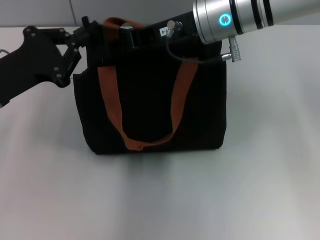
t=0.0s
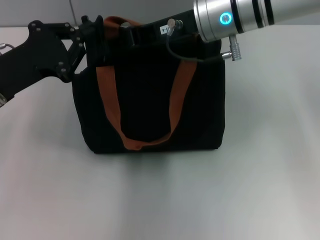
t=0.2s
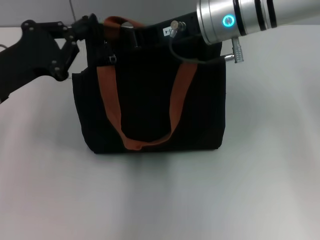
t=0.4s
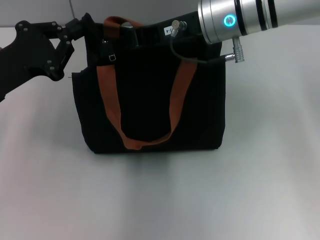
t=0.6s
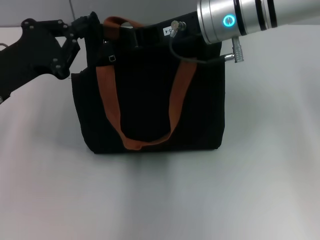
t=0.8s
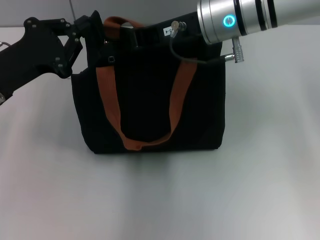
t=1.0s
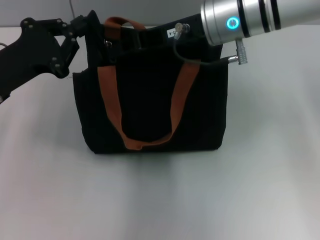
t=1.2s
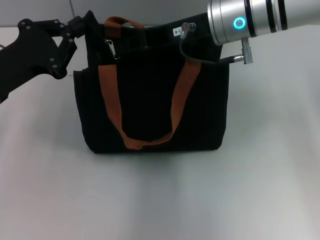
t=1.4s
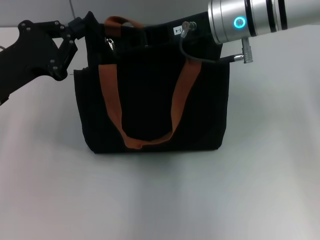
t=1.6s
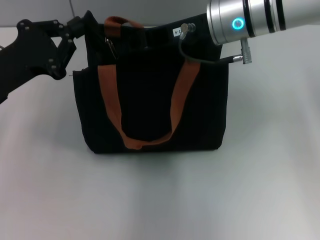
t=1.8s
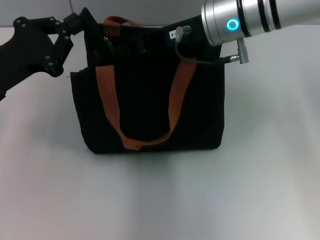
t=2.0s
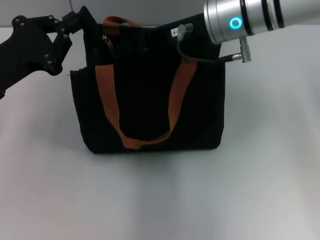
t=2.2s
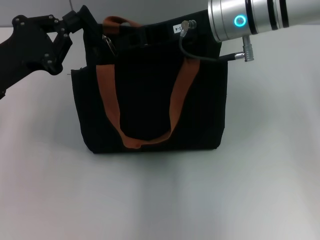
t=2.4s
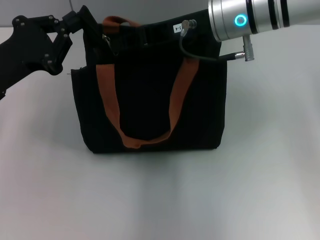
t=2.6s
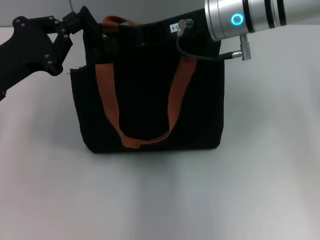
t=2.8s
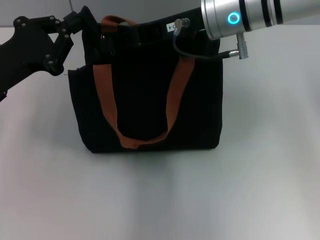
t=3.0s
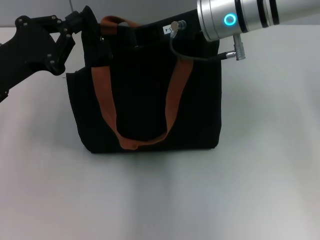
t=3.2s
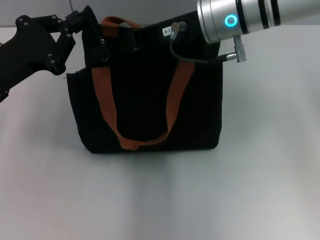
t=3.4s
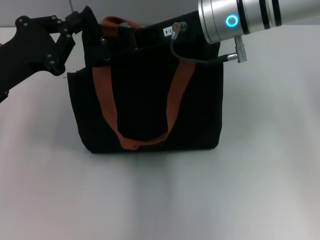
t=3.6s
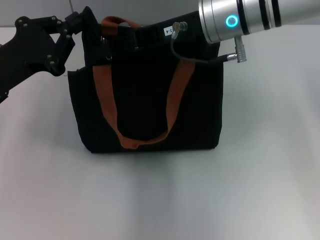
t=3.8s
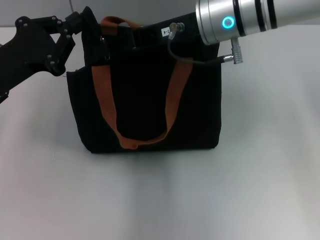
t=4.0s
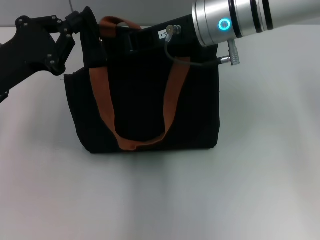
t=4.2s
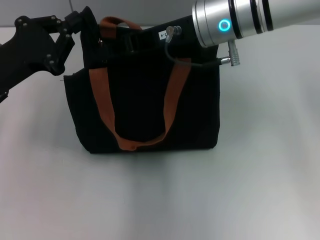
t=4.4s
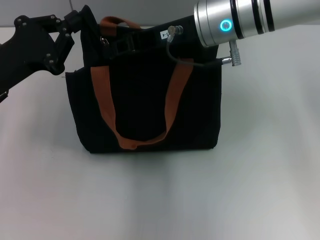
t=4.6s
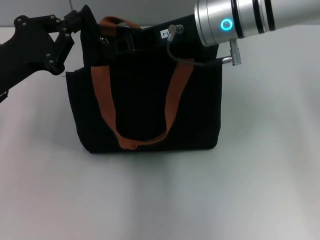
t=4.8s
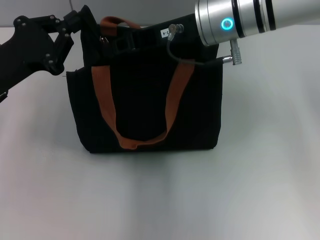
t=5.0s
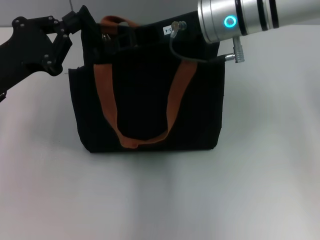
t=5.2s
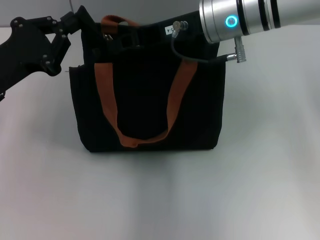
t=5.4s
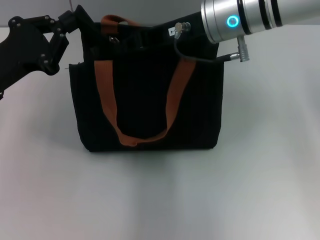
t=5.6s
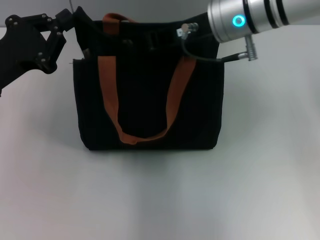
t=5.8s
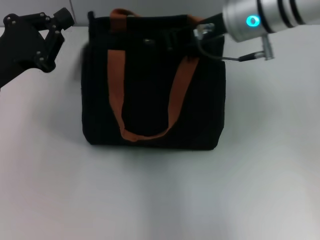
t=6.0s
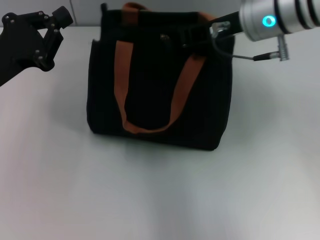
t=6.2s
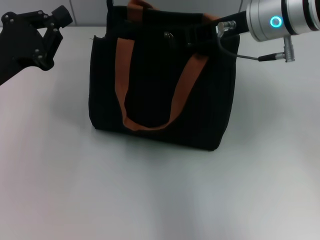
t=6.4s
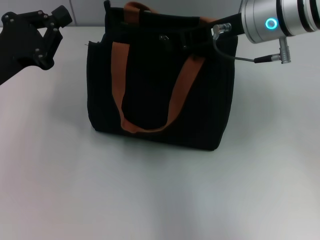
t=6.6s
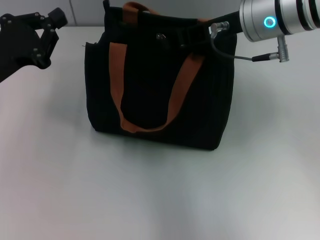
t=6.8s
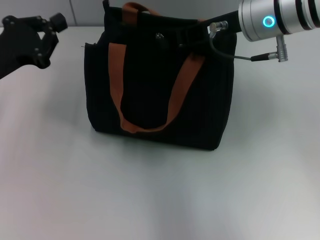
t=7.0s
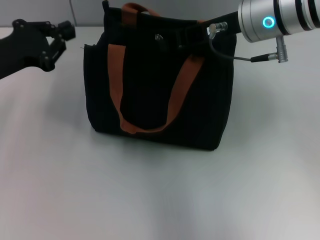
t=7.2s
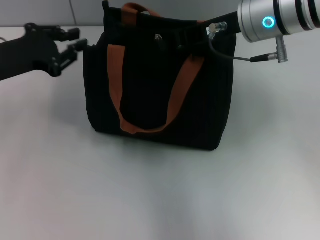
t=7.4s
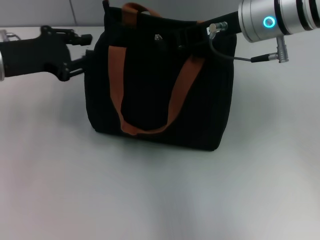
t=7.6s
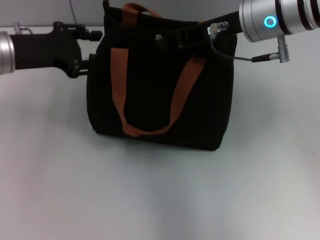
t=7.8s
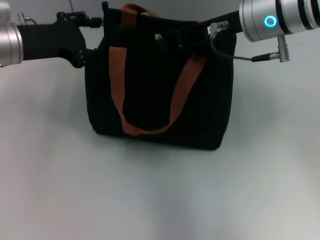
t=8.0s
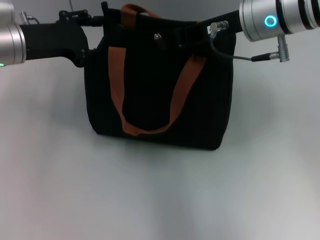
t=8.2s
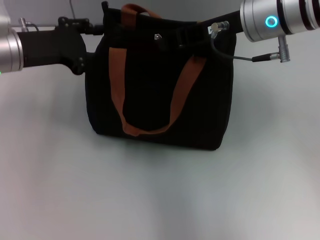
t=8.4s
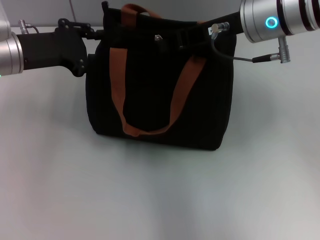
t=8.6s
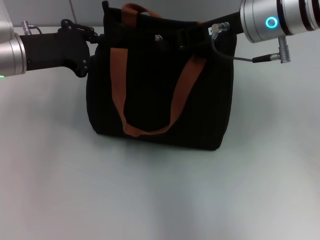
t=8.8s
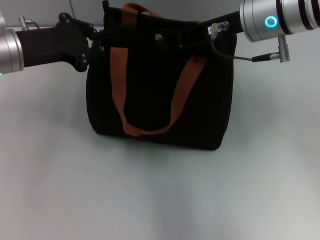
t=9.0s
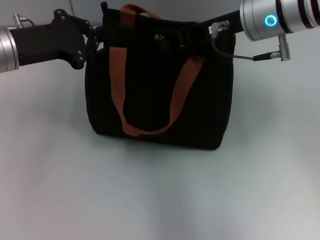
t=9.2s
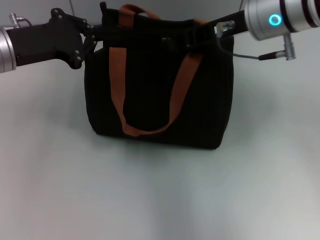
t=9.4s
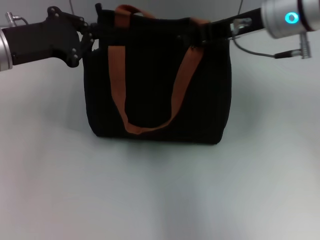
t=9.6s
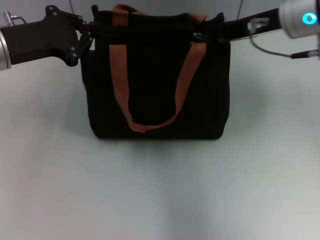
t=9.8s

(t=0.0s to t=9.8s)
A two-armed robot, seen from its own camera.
t=0.0s - t=1.4s: There are only small adjustments of the grippers.
t=1.4s - t=2.8s: The two grippers keep their place.
t=2.8s - t=4.2s: Both grippers stay about where they are.
t=4.2s - t=5.6s: The right gripper closes its fingers.
t=7.0s - t=8.4s: The left gripper shifts roughly 5 cm forward, and opens.
t=8.4s - t=9.8s: The left gripper closes its fingers. Meanwhile the right gripper moves approximately 5 cm.

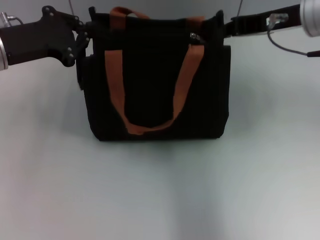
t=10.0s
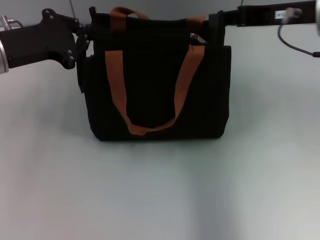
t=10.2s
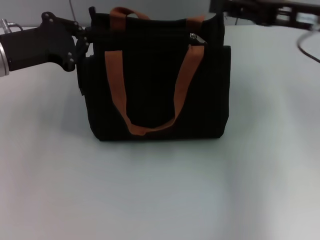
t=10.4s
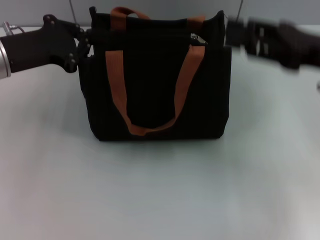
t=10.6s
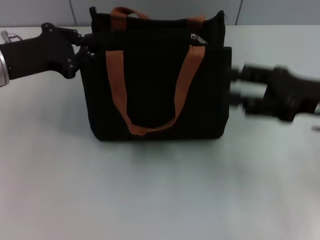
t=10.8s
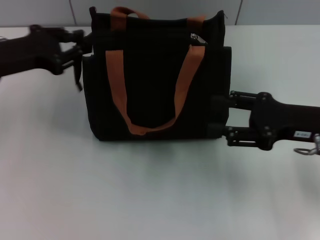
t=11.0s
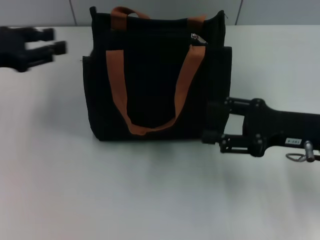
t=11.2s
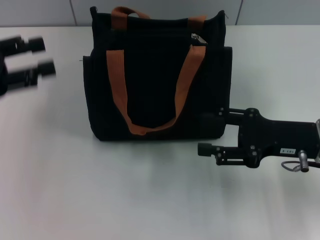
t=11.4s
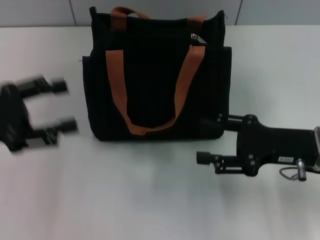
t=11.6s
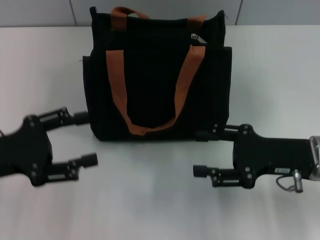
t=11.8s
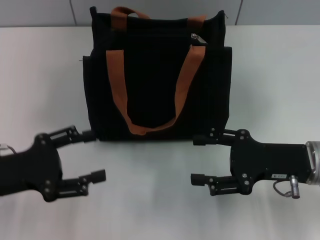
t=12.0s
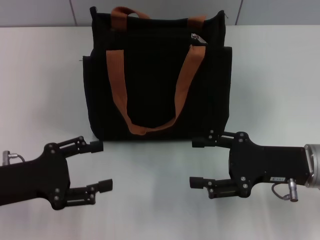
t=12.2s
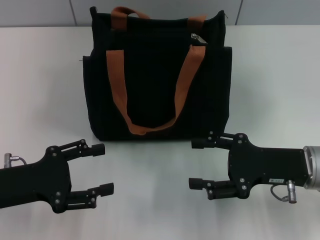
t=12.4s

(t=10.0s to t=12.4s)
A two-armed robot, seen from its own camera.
Step, t=10.6s - t=11.0s: Grab the zipper with your left hand.
t=10.0s - t=11.2s: The left gripper shifts some 5 cm to the left, and opens, while the right gripper heads downward and backward, covering about 15 cm, and opens.
t=11.2s - t=12.4s: The left gripper shifts approximately 15 cm backward and downward, and opens its fingers.

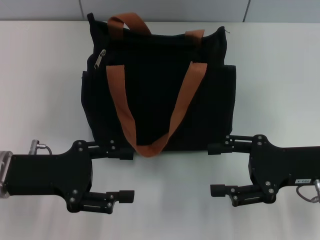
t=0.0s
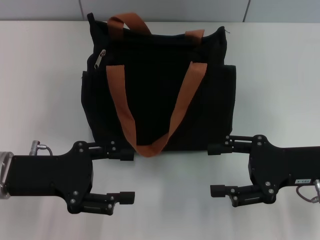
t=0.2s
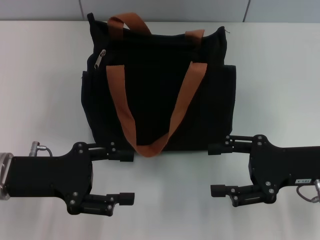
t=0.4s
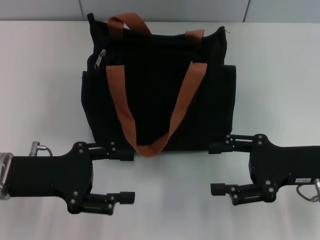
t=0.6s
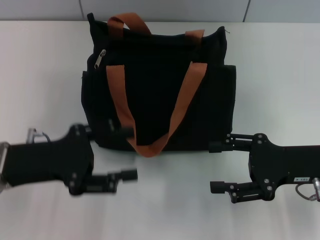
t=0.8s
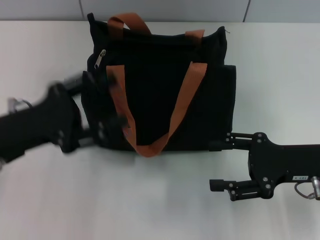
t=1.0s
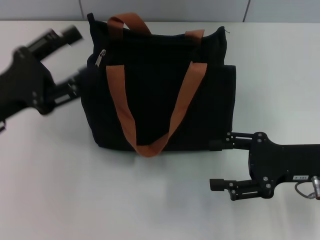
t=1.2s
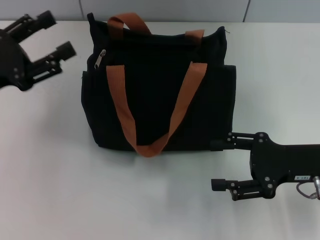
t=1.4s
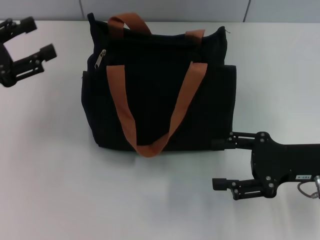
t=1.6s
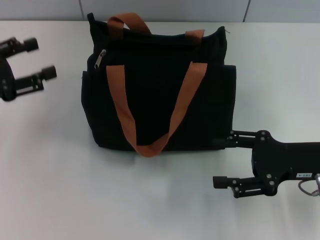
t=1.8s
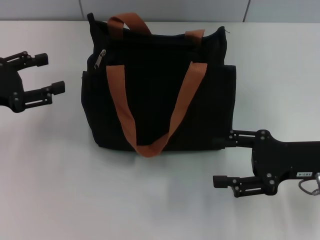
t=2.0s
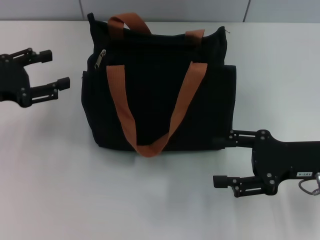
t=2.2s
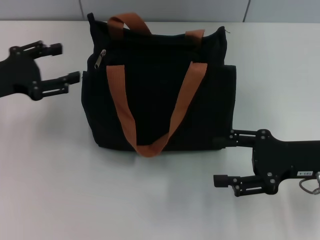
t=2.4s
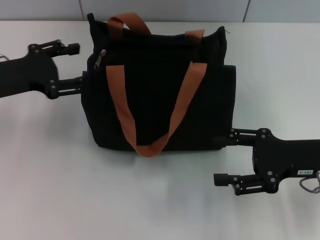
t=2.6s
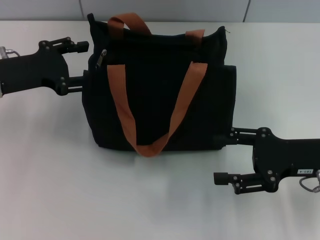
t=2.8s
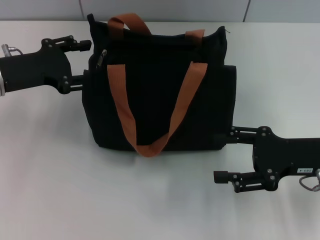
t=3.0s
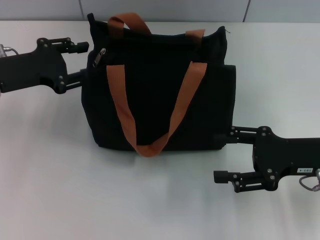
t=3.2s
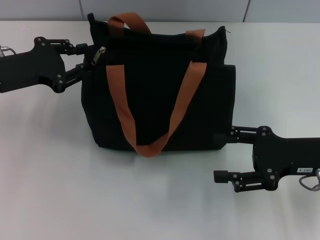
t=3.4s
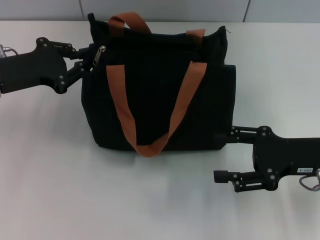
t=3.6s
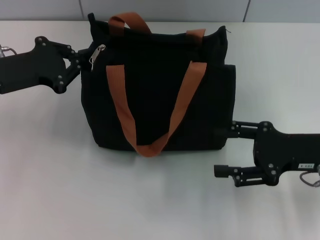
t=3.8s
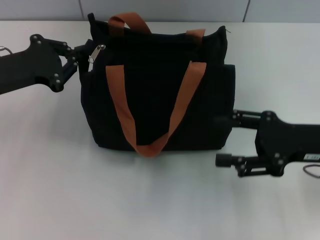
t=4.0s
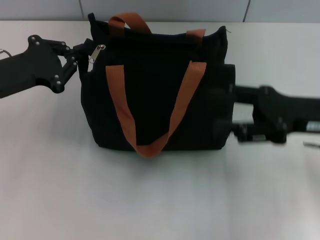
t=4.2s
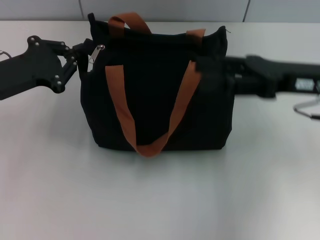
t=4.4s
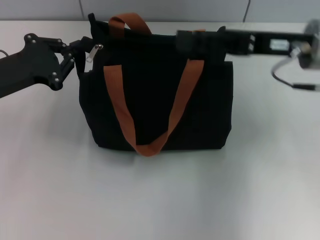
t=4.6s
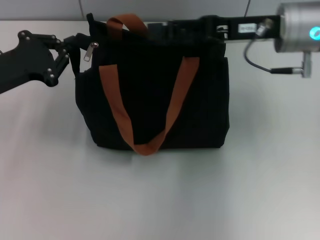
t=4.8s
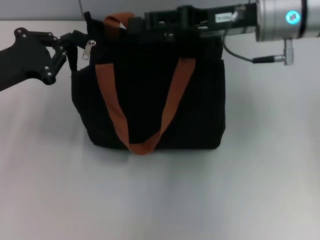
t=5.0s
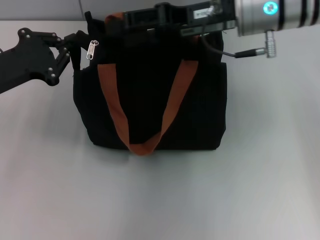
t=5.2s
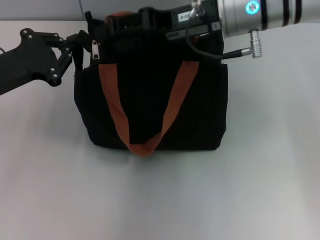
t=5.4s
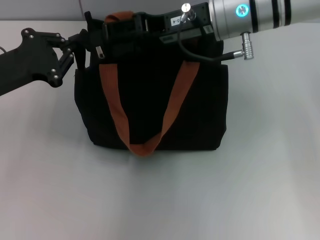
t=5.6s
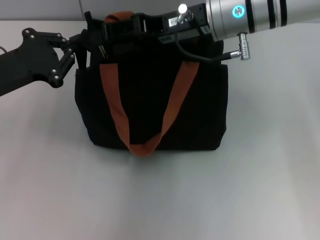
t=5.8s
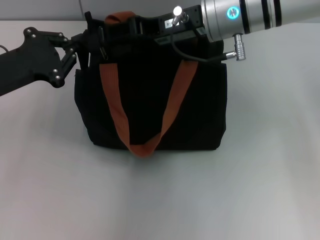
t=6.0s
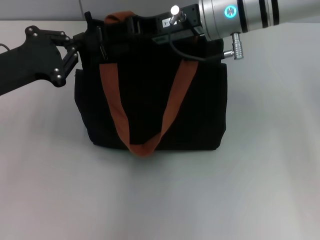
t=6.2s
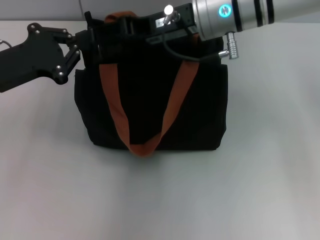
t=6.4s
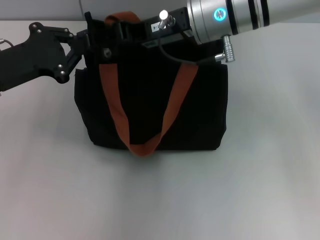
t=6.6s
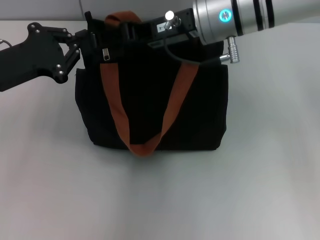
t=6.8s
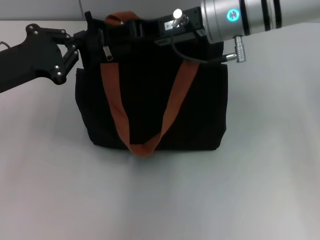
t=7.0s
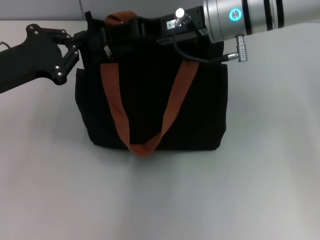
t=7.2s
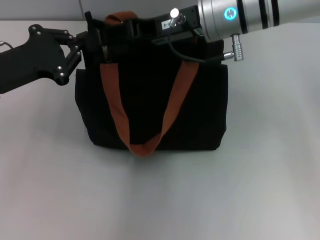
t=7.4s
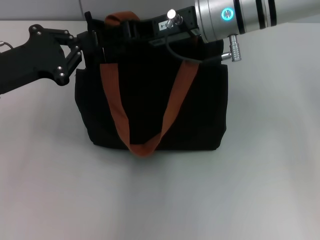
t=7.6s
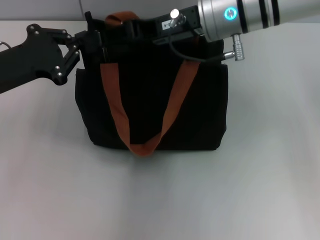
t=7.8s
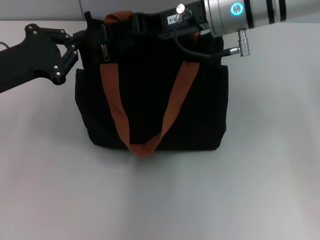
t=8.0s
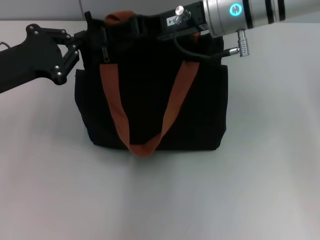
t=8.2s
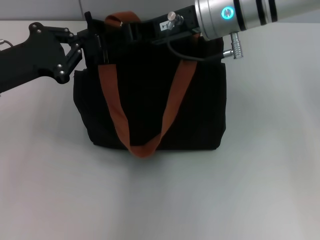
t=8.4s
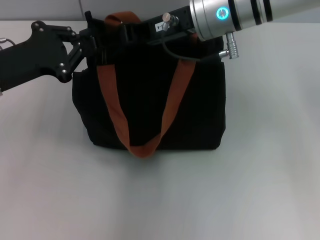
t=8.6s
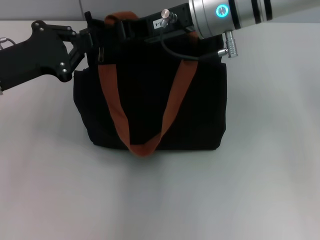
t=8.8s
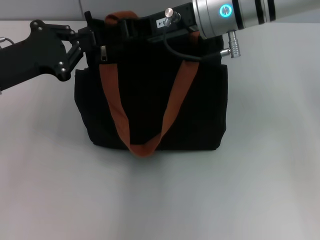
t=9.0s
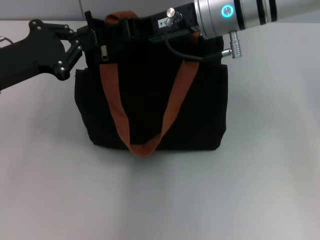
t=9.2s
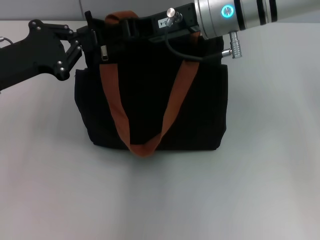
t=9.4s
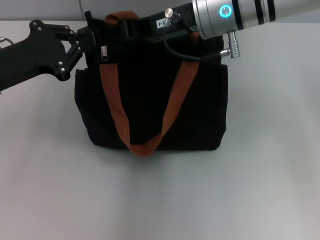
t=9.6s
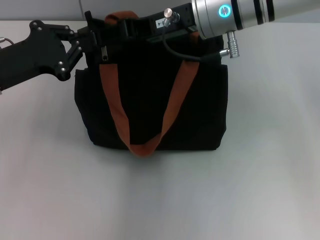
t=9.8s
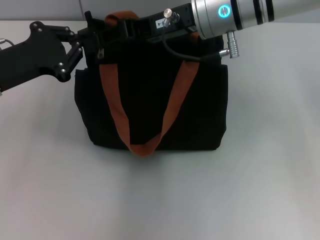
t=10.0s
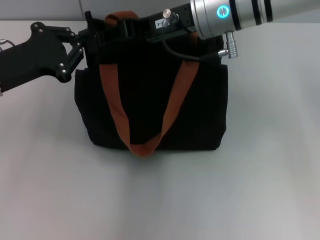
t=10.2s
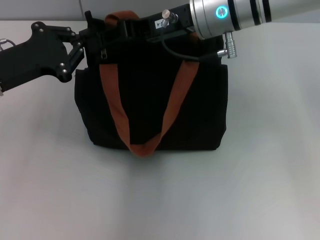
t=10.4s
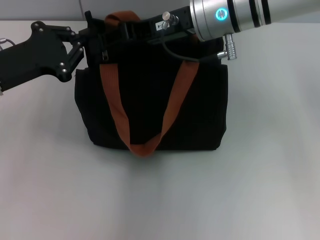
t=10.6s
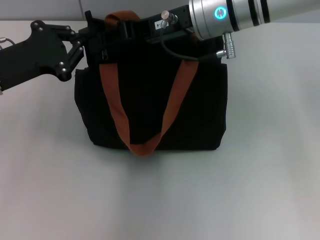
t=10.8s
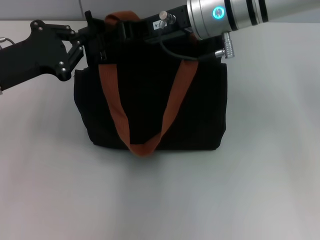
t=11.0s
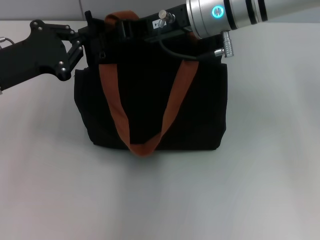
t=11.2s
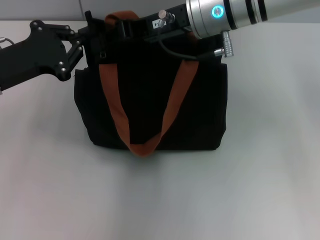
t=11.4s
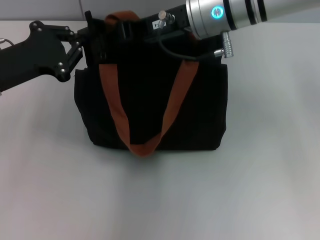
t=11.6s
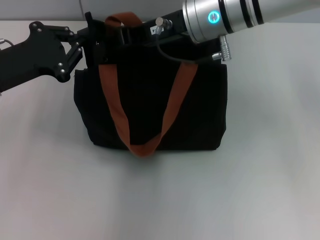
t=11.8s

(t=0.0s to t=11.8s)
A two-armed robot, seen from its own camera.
t=0.0s - t=1.4s: The left gripper heads to the left, covering about 5 cm.
t=1.4s - t=3.0s: The left gripper shifts some 5 cm forward.
t=3.0s - t=4.4s: The left gripper closes up. Meanwhile the right gripper heads upward and forward, covering about 10 cm.
t=4.4s - t=6.0s: The right gripper shifts approximately 15 cm to the left and forward.
t=6.0s - t=8.8s: The grippers move only a little.
t=8.8s - t=10.4s: The right gripper closes up.
t=10.4s - t=11.8s: Both grippers stay put.
